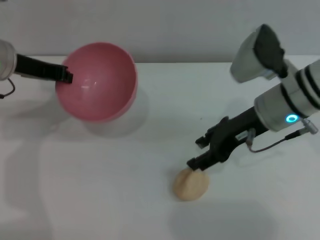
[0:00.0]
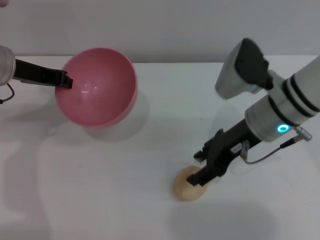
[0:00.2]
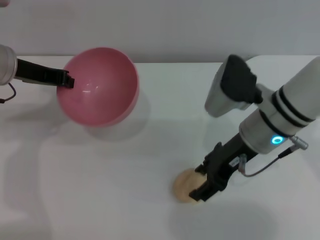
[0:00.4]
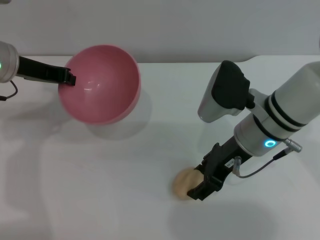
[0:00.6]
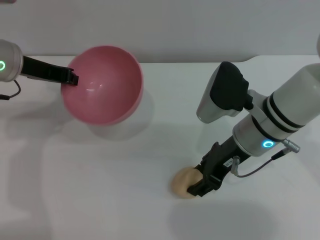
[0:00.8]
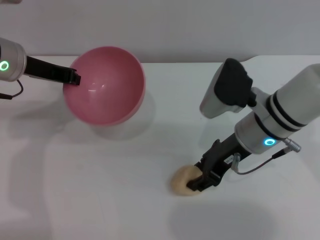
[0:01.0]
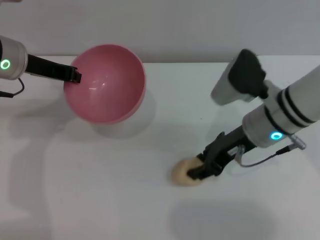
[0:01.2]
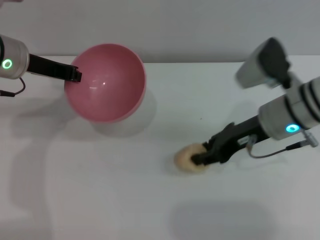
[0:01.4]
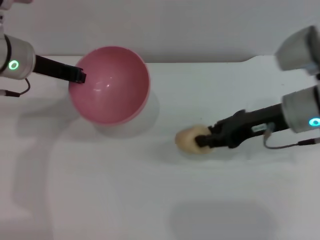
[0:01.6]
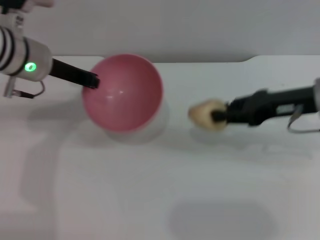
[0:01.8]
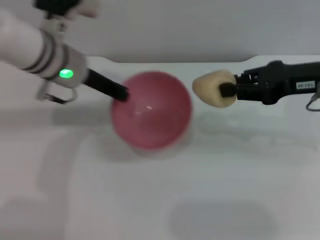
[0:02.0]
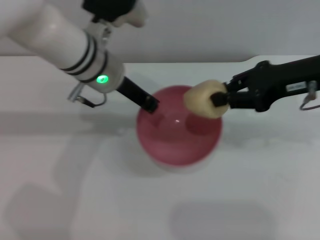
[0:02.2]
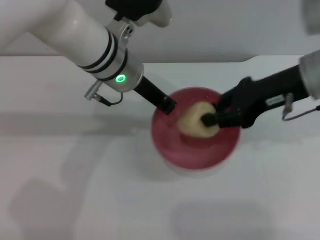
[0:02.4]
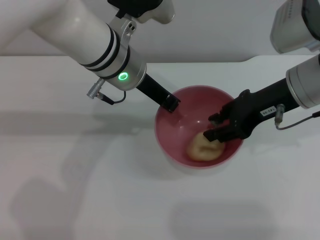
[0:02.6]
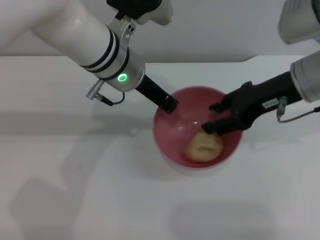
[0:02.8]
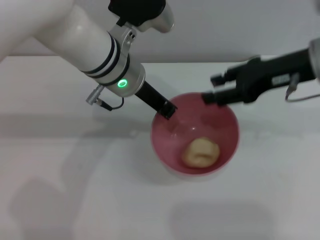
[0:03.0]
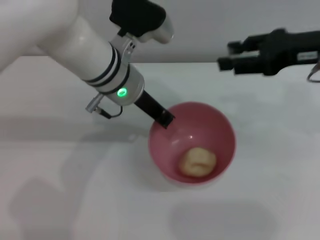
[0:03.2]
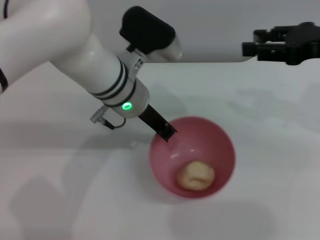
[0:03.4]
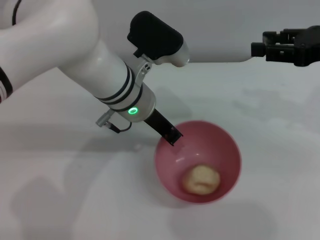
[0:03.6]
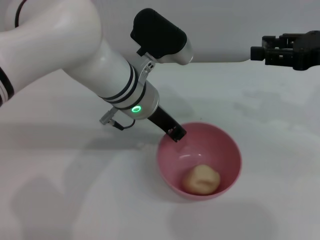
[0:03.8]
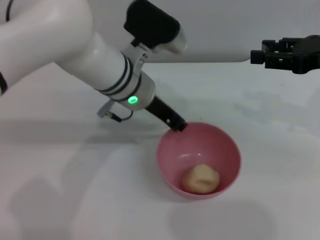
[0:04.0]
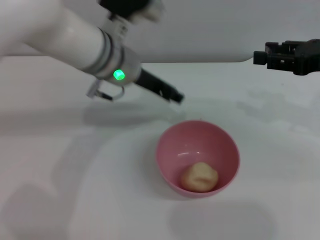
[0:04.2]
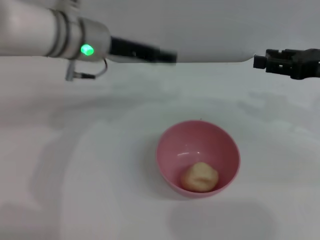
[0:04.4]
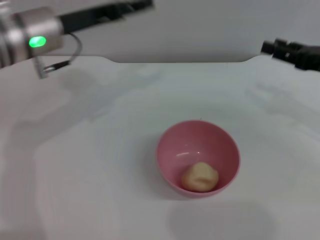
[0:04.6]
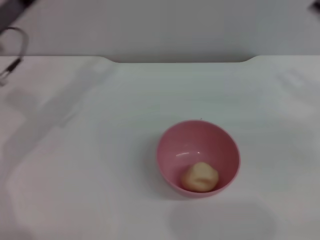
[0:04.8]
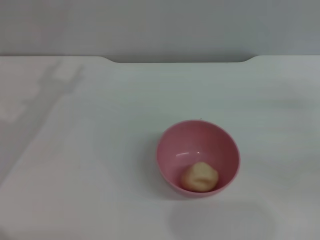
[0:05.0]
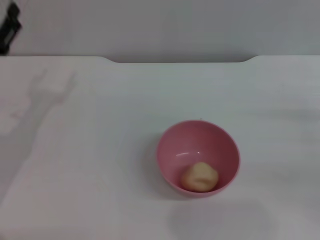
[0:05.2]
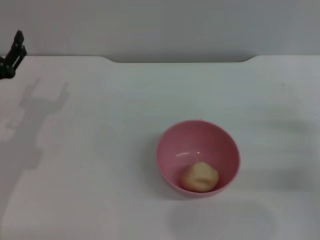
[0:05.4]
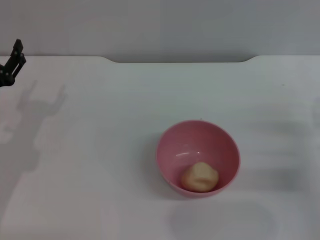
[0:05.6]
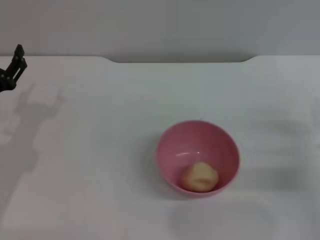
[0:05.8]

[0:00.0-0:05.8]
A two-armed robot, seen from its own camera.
Task of the whole recording: put the egg yolk pastry into the pink bowl and pour it out repeatedly.
Step, 0:00.0 to 0:01.6: Pick up the egg yolk pastry with the right gripper.
Step, 0:02.0 to 0:02.8: Place the egg yolk pastry into the bowl.
Step, 0:03.0 to 0:04.2: Place the bowl on the table.
0:00.0 to 0:01.4: The right gripper closes up.
0:01.4 to 0:02.8: The left gripper heads to the right, covering about 15 cm. The right gripper goes approximately 5 cm upward, and closes and opens again.
0:02.8 to 0:04.4: The left gripper shifts approximately 5 cm to the left, and opens its fingers, while the right gripper goes about 10 cm to the right, and opens up.
0:04.4 to 0:05.8: The left gripper heads to the left, downward and backward, covering approximately 25 cm, and opens its fingers; the right gripper shifts roughly 15 cm downward and backward.

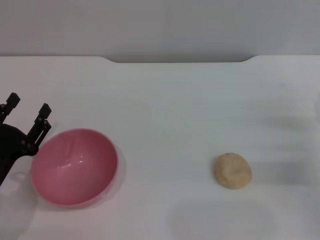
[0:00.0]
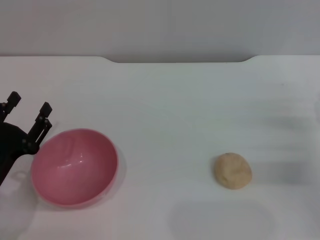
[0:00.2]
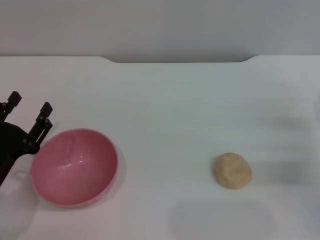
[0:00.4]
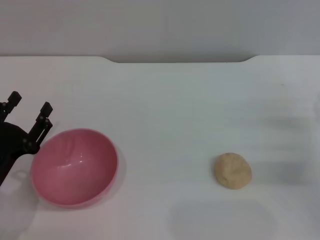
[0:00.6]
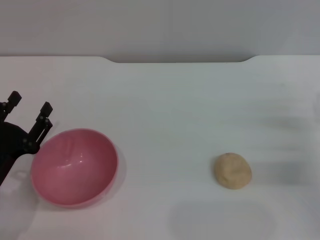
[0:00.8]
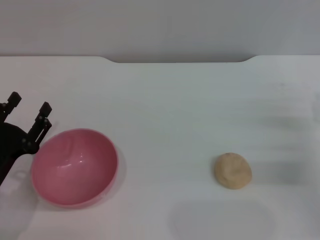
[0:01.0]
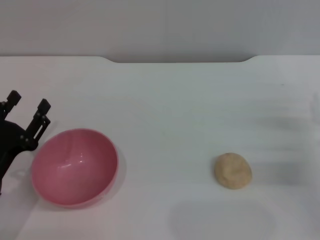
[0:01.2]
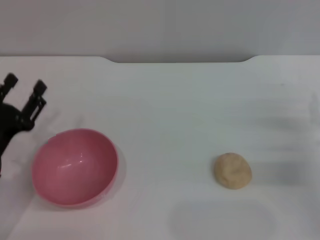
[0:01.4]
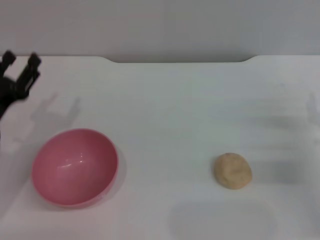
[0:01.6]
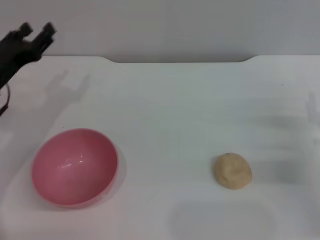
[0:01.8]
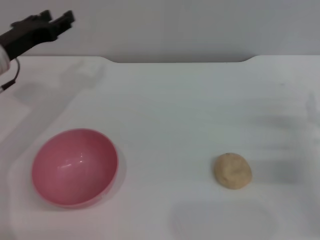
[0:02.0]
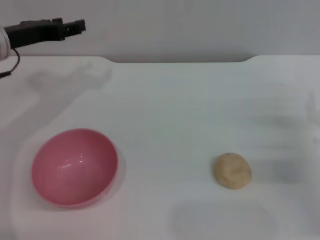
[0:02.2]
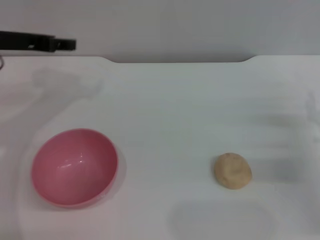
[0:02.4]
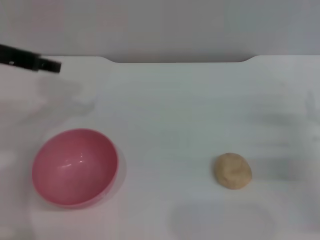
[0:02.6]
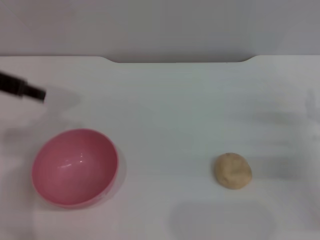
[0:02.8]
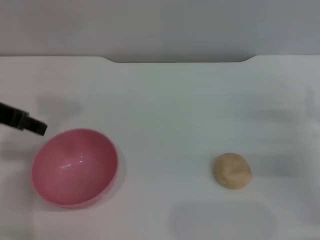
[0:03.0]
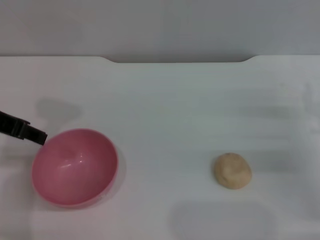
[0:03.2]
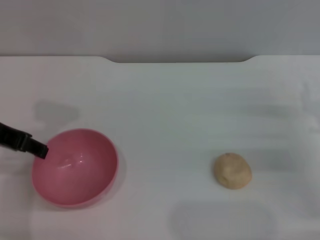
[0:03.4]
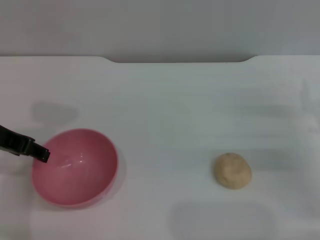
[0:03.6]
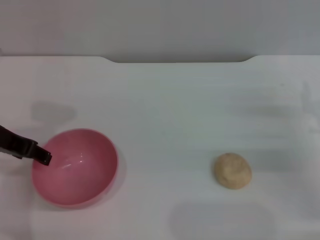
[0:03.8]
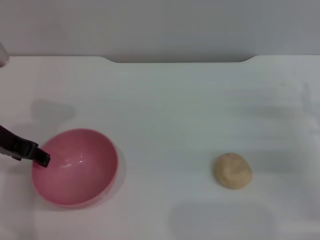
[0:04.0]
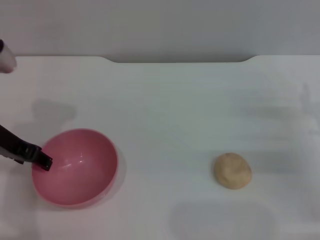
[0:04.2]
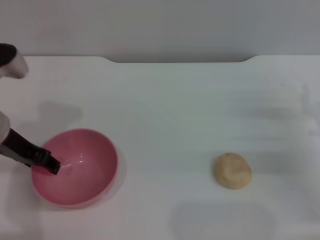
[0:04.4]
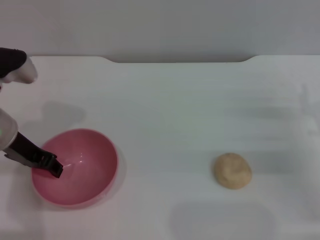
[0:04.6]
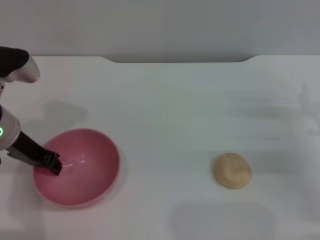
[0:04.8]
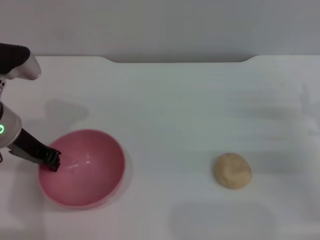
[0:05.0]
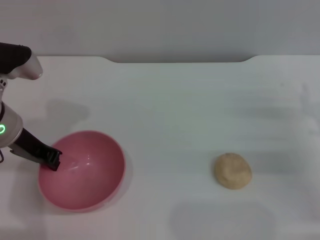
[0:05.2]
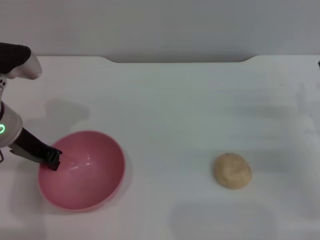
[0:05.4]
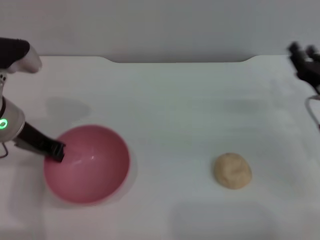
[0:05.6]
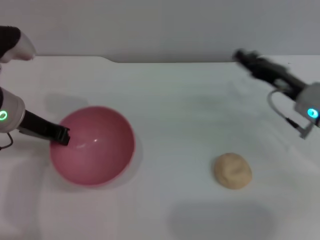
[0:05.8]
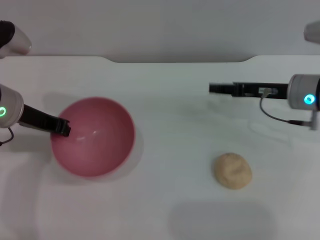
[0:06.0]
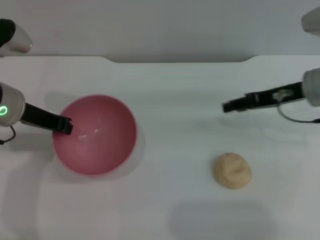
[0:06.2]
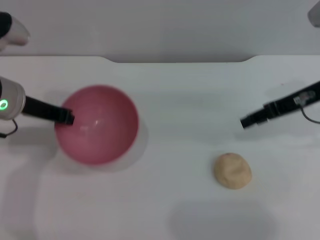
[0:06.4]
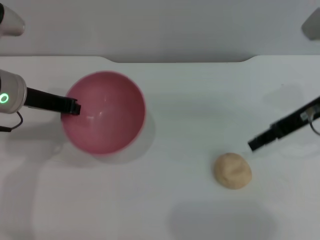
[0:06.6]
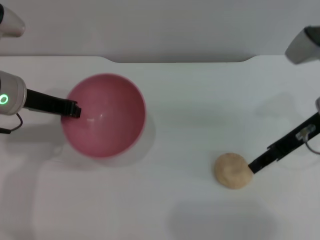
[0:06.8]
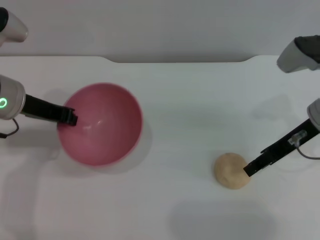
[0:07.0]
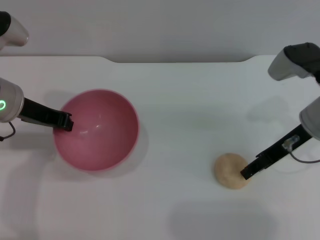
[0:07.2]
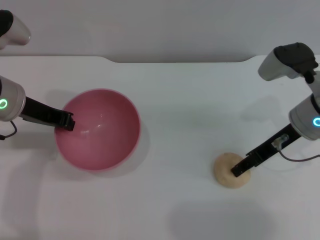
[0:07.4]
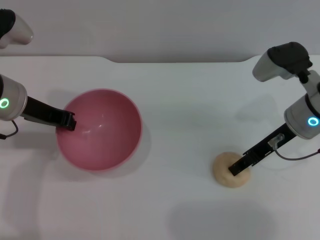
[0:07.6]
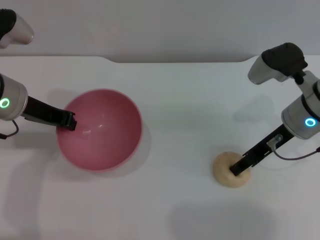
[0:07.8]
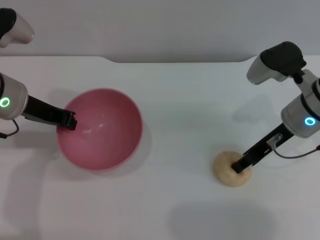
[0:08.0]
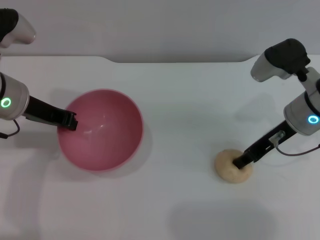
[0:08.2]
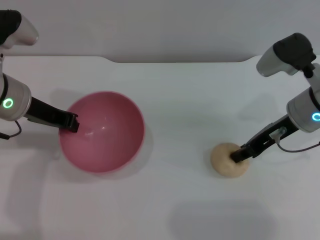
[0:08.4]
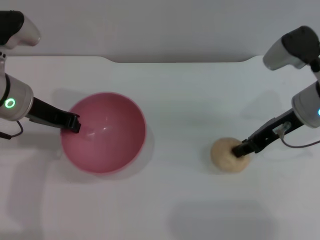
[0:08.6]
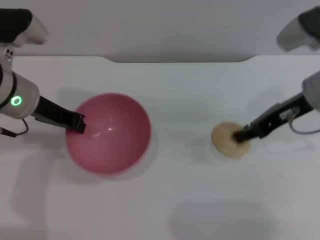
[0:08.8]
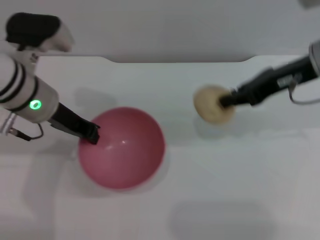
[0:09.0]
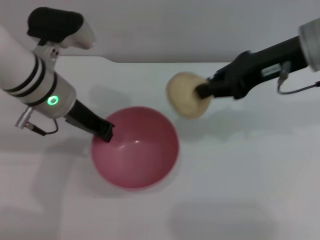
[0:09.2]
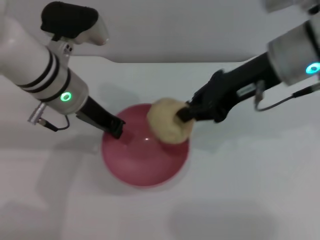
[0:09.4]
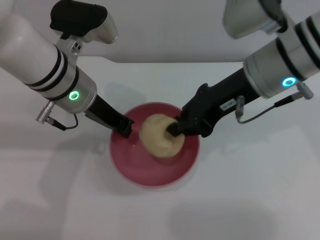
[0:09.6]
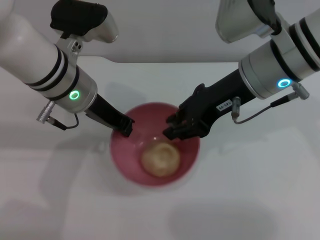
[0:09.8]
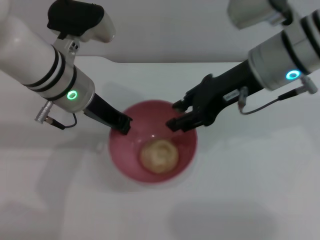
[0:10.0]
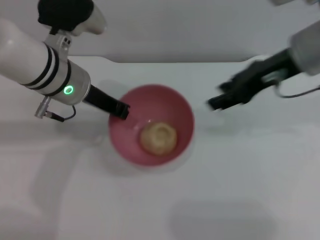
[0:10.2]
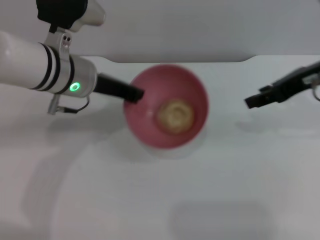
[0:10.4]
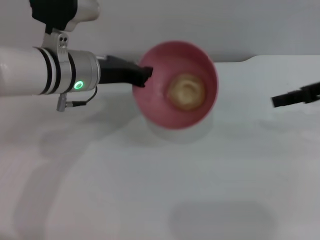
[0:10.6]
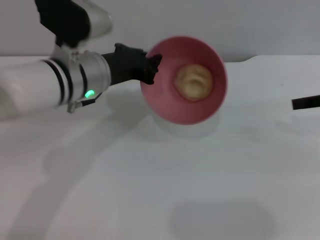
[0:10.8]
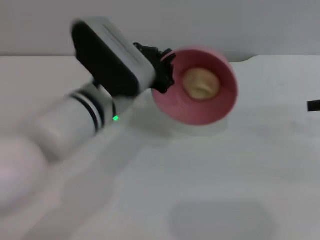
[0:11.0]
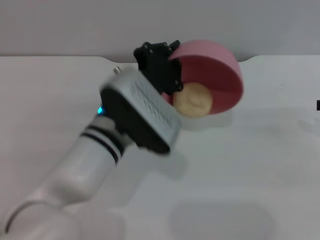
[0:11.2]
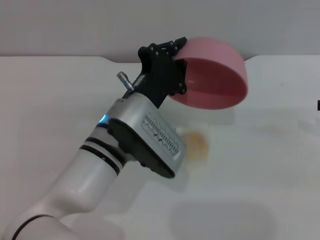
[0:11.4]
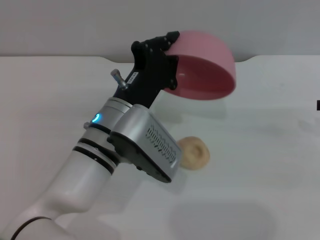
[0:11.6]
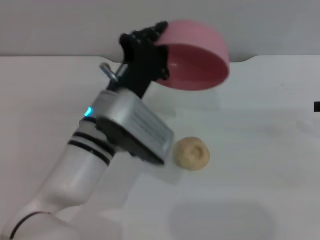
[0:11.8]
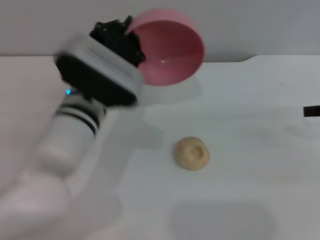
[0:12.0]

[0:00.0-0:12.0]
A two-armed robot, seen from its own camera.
Task of the whole recording: put the egg yolk pastry into the pink bowl and pour it out repeatedly.
Step, 0:00.0 to 0:05.8: Pick up the bowl with the left gripper.
Step, 0:06.0 to 0:08.8: Pick up the egg yolk pastry with the right gripper.
Step, 0:09.0 to 0:09.8: Place the egg yolk pastry into the bowl.
Step, 0:10.0 to 0:11.4: Pour the egg yolk pastry out of bowl.
0:00.0 to 0:01.6: The left gripper goes roughly 5 cm forward.
0:01.6 to 0:03.0: The left gripper shifts some 20 cm upward.
0:03.0 to 0:04.4: The left gripper goes some 10 cm downward.
0:04.4 to 0:06.0: The right gripper travels forward, to the left and upward by roughly 15 cm. The left gripper closes its fingers.
0:07.6 to 0:09.0: The right gripper heads upward, covering about 10 cm, and closes.
0:09.0 to 0:10.4: The right gripper reaches some 10 cm to the left, then returns, and opens its fingers.
0:10.4 to 0:12.0: The left gripper heads backward, covering some 5 cm, while the right gripper is displaced to the right and downward by roughly 10 cm.

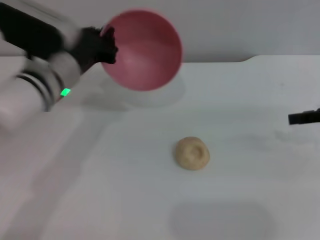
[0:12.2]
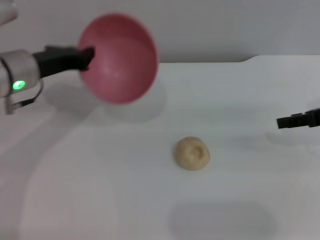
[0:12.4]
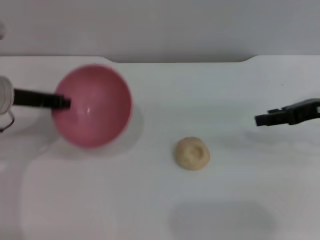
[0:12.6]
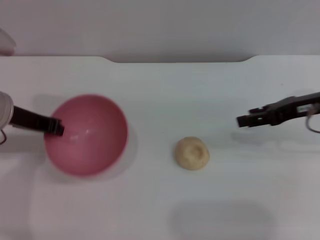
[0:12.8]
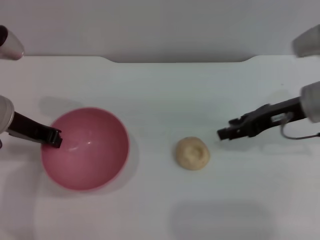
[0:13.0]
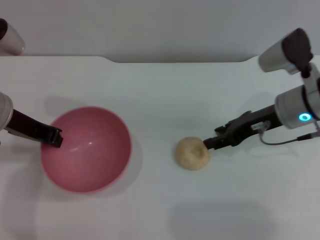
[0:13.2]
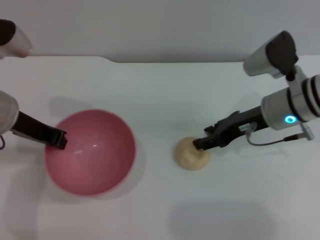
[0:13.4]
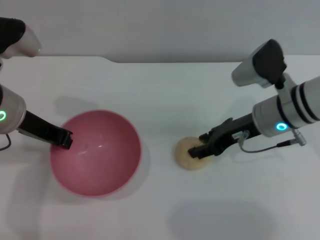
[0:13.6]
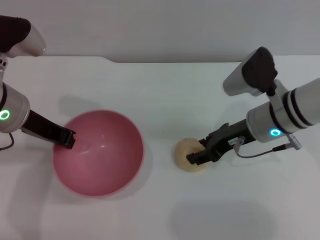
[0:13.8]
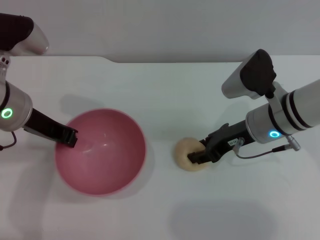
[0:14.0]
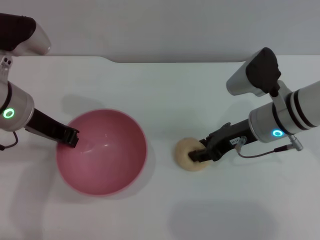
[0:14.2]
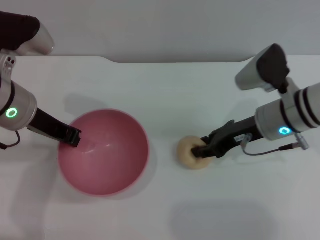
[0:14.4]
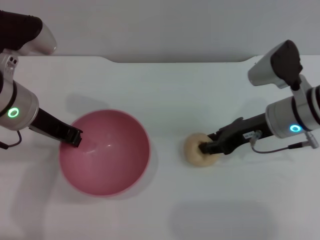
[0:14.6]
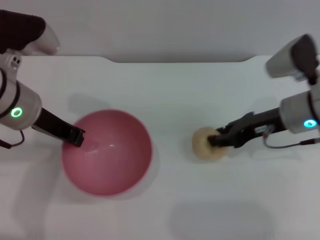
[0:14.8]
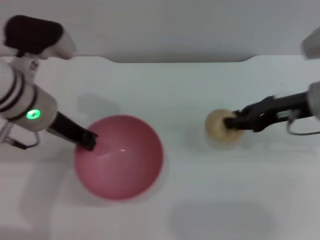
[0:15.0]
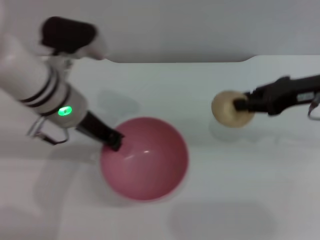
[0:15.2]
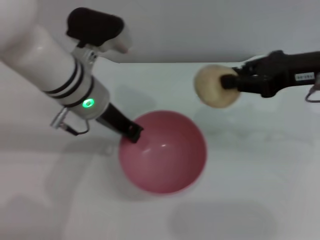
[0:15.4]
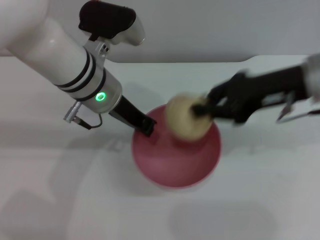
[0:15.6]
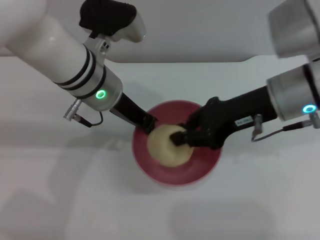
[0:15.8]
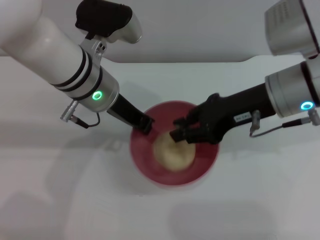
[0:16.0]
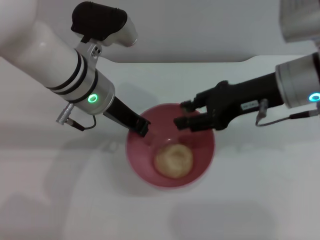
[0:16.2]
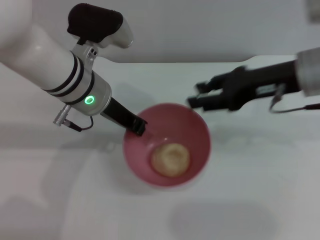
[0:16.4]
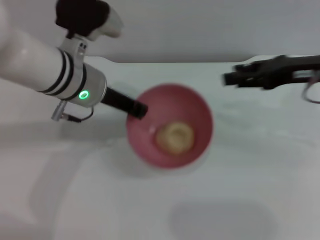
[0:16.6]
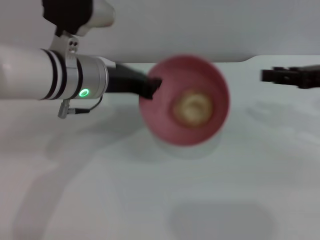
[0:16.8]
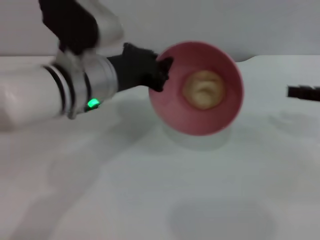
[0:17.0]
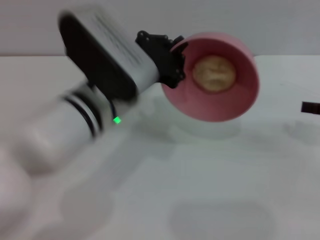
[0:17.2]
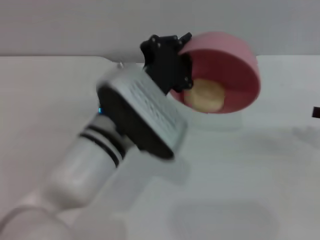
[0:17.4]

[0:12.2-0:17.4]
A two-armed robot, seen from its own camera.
Task of the whole recording: put the egg yolk pastry into the pink bowl and pour it out repeatedly.
Step, 0:12.2 to 0:14.8: Pick up the egg yolk pastry with the right gripper.
Step, 0:15.2 to 0:16.2: Place the egg yolk pastry into the bowl.
0:12.2 to 0:14.0: The left gripper moves about 5 cm. The right gripper moves to the left and downward, about 20 cm.
0:14.0 to 0:15.6: The right gripper goes about 10 cm upward, and closes up. The left gripper is displaced to the right by some 10 cm.
0:15.6 to 0:17.4: The right gripper heads to the right, covering approximately 20 cm, and opens up. Meanwhile the left gripper travels backward by some 10 cm.
